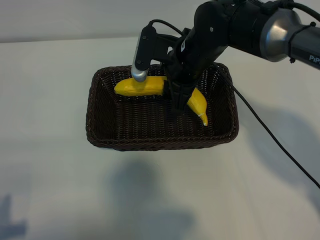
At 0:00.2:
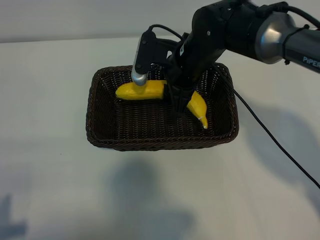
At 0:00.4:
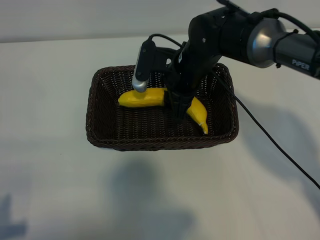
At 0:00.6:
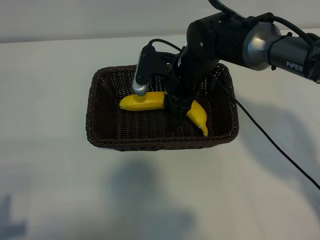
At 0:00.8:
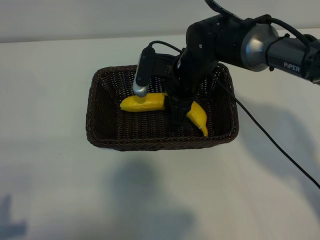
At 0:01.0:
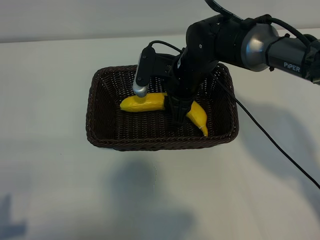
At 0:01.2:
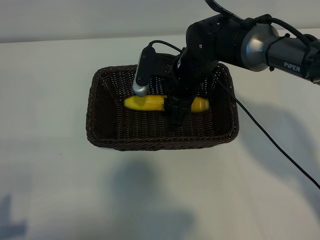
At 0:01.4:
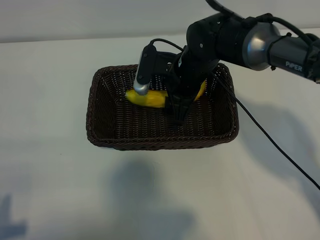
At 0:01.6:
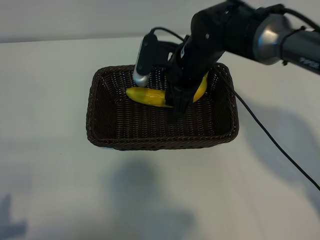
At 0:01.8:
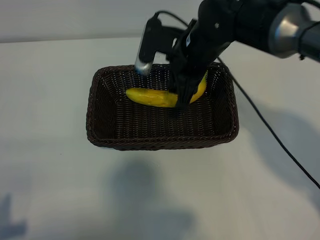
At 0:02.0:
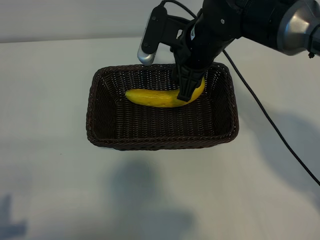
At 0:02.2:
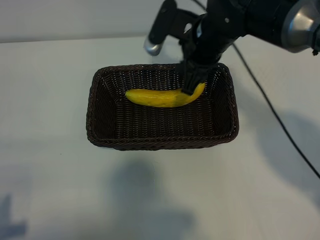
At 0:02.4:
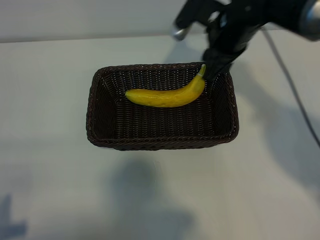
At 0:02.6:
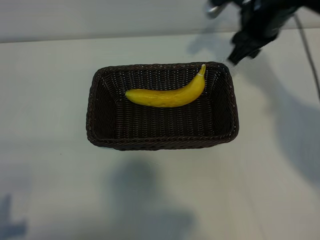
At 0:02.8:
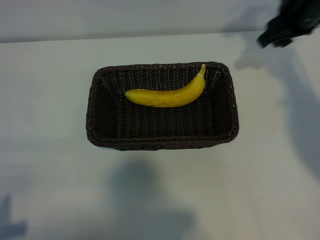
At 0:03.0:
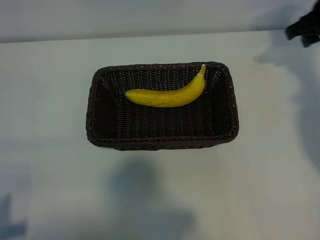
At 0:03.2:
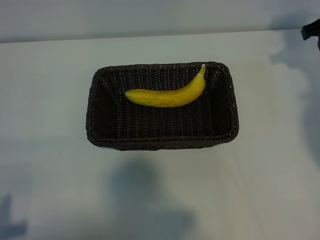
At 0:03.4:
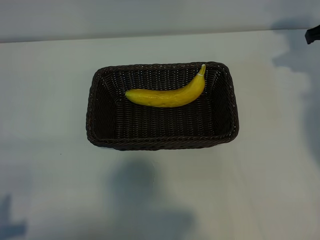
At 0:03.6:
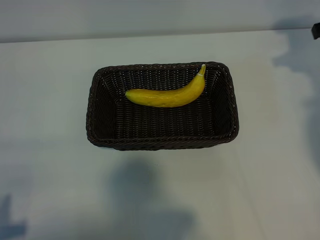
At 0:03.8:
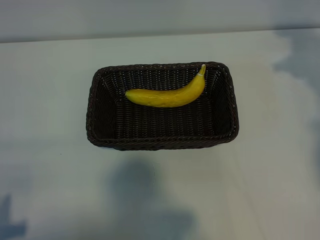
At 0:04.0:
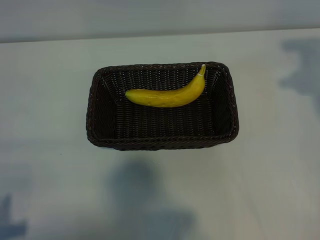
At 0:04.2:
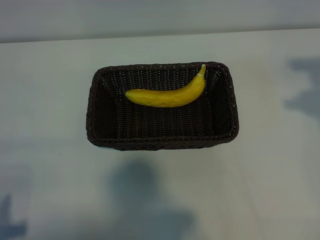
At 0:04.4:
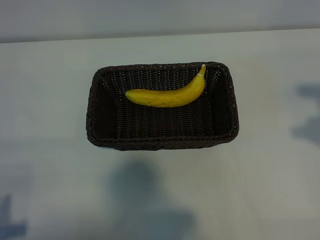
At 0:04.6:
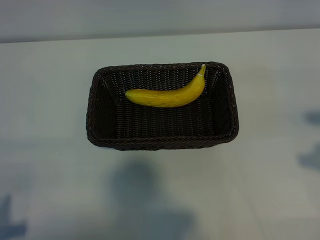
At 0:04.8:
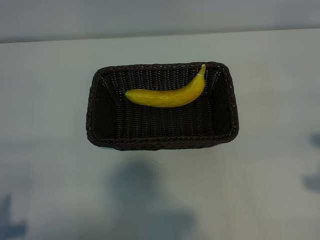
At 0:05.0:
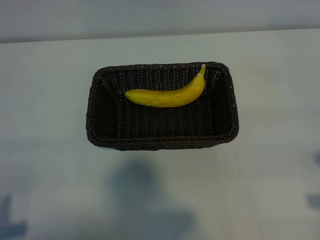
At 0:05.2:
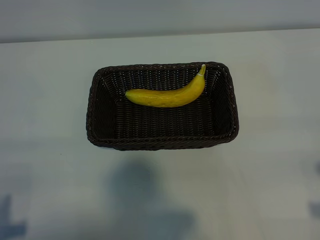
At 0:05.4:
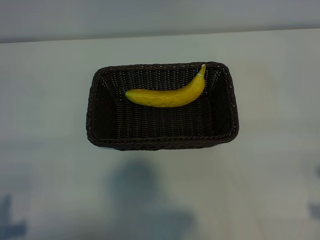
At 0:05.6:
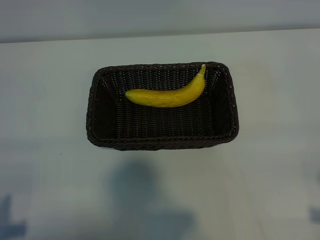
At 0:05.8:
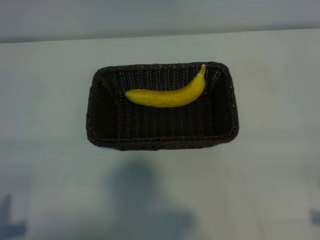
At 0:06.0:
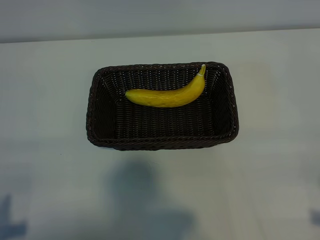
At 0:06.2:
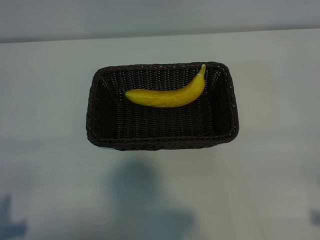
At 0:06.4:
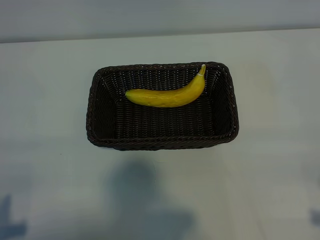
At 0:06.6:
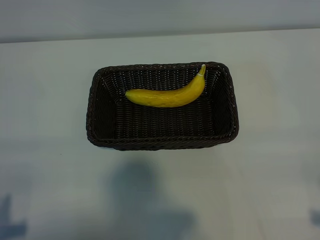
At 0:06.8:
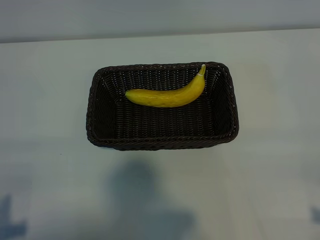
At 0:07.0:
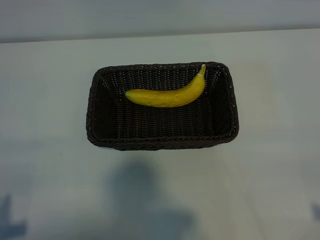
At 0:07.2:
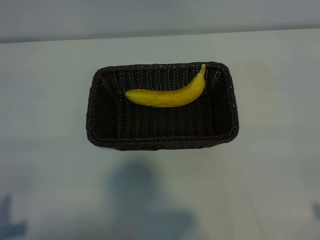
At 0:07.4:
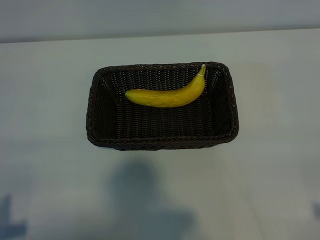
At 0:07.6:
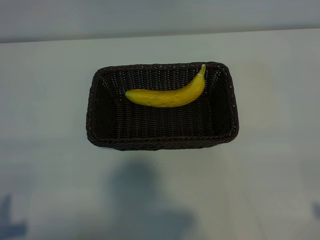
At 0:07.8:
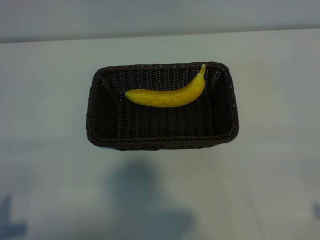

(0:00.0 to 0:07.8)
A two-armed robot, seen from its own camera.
Task of the whole recording: pick up the banana and put it into the basket.
Step, 0:00.0 - 0:02.0: Place the banana in the basket with right gripper.
